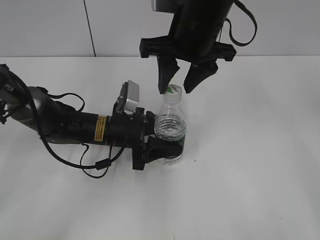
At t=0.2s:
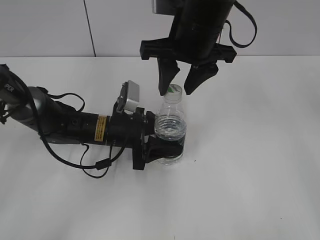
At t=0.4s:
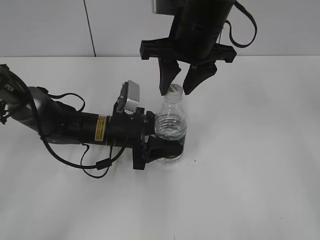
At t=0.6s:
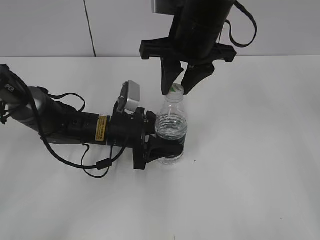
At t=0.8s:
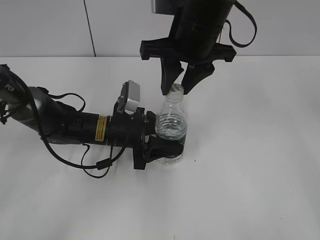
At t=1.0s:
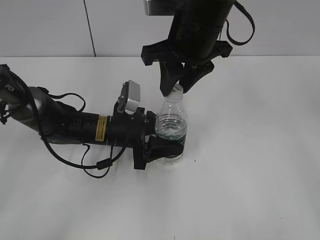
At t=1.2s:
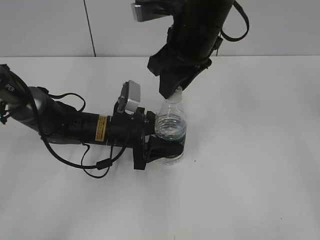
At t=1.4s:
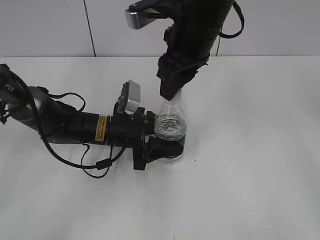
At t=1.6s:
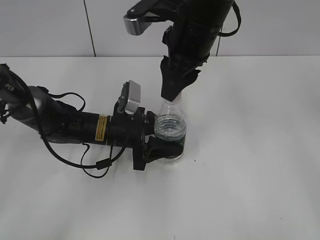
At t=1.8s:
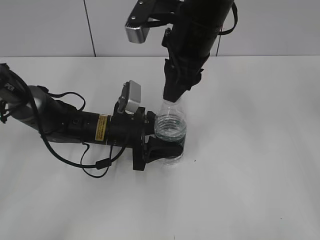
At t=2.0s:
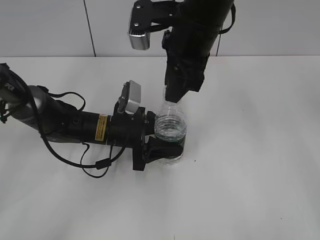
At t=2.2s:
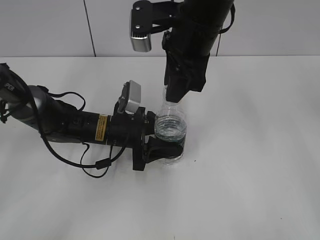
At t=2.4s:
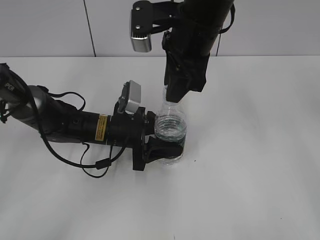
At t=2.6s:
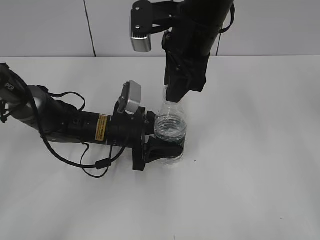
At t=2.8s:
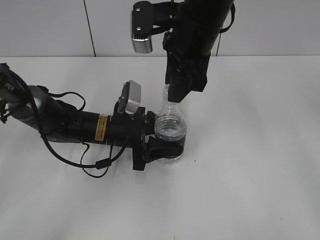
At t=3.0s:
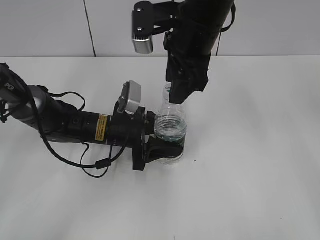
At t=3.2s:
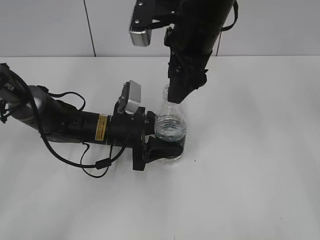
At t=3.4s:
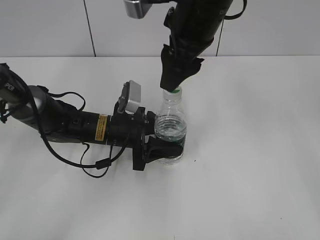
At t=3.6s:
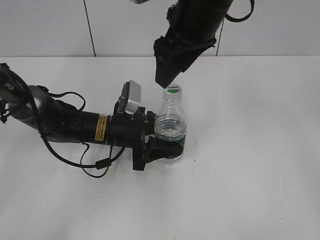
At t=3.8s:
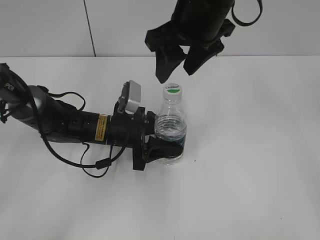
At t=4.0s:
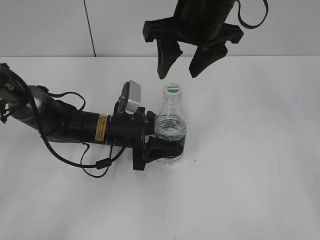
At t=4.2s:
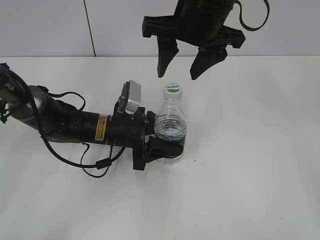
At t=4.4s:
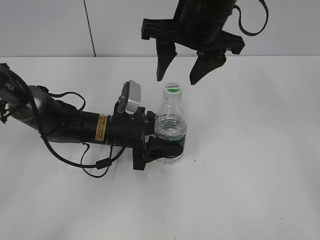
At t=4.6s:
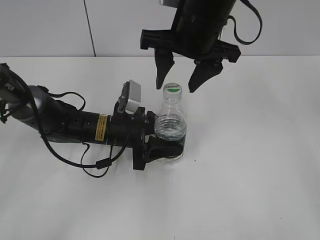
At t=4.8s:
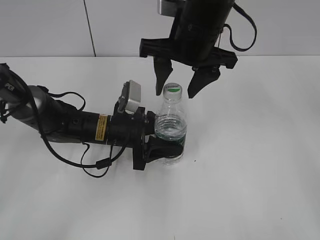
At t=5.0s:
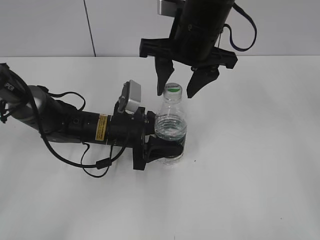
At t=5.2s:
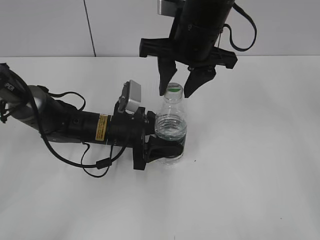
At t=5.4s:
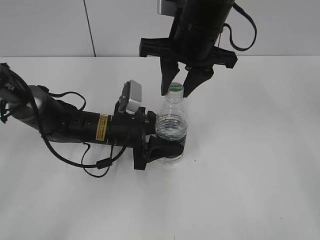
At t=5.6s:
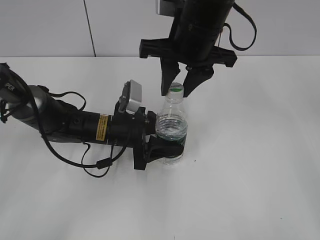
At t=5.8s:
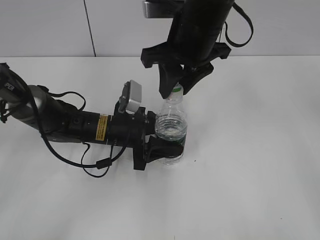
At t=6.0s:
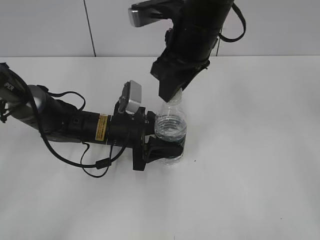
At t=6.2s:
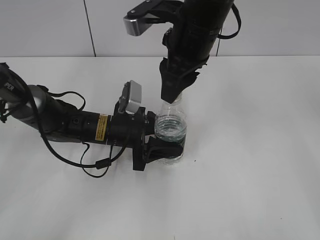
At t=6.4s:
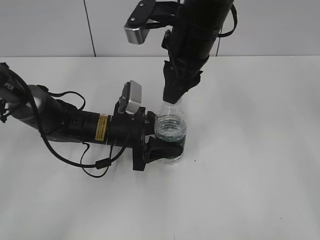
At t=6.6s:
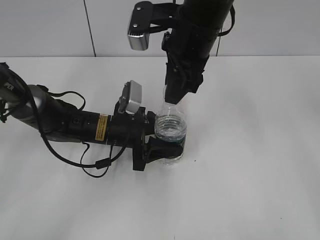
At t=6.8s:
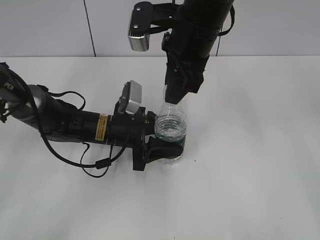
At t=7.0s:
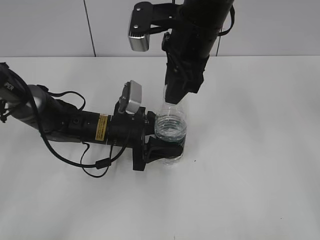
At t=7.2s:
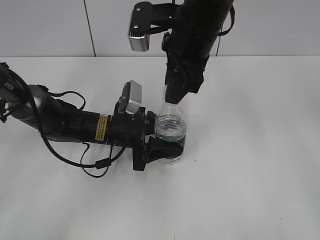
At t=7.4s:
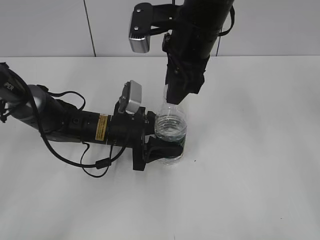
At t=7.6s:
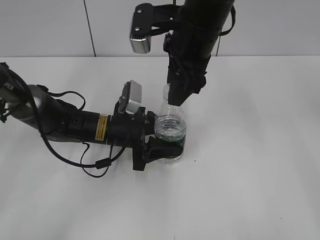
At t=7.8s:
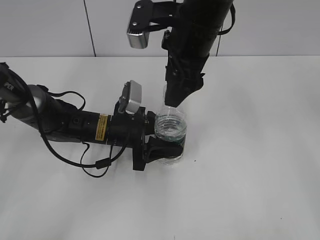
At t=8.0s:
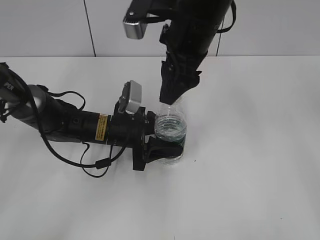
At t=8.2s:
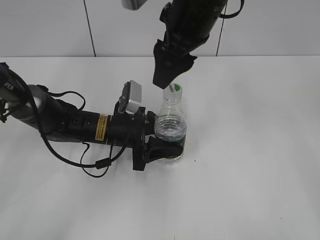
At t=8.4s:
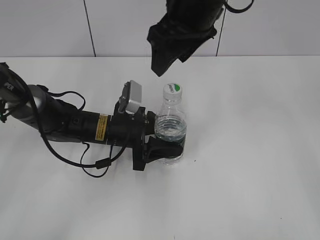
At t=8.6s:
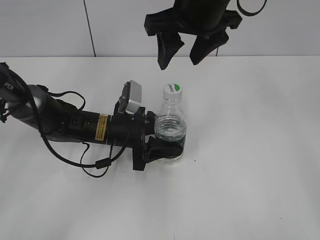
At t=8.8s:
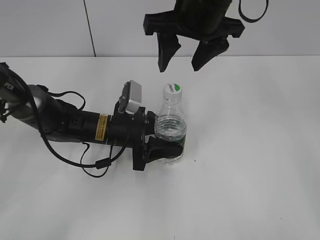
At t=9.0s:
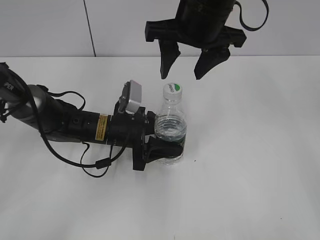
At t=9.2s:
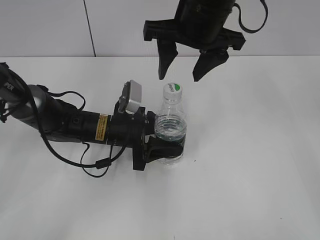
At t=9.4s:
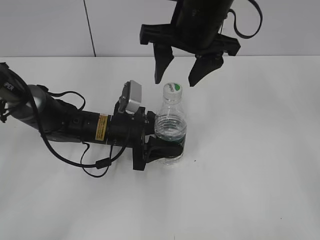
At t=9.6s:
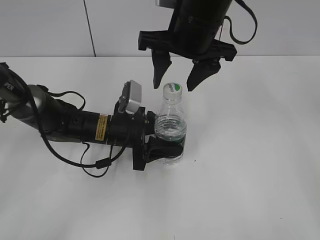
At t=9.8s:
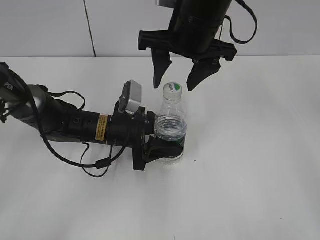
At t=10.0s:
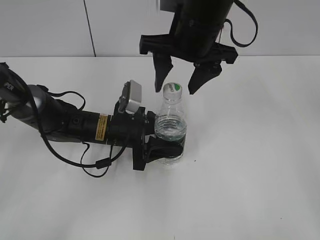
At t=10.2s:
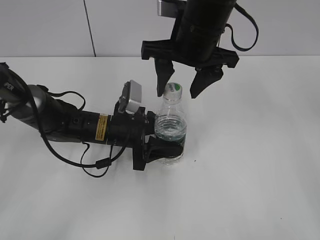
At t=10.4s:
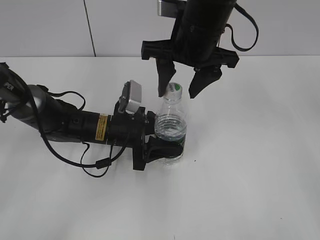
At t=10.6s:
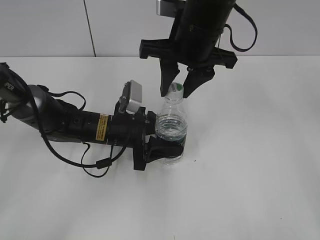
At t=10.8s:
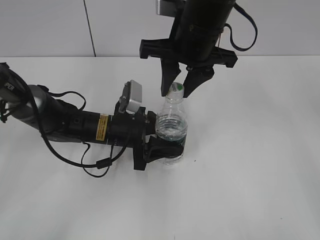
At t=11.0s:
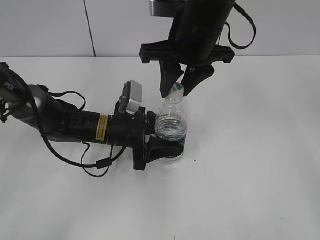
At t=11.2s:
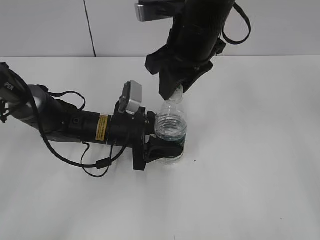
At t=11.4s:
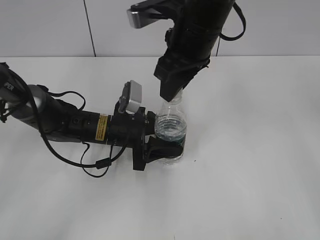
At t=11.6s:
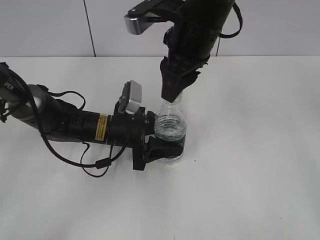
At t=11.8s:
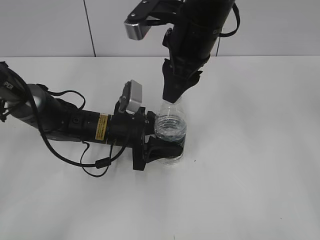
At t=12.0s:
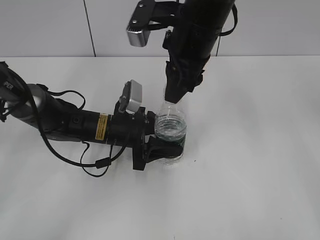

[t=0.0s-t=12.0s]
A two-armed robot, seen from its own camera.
t=0.0s to t=1.6s: The right gripper closes up.
t=1.6s to t=3.0s: The right gripper opens.
t=4.4s to t=6.0s: The right gripper closes its fingers.
t=6.0s to t=7.6s: The right gripper opens its fingers.
t=7.6s to t=9.0s: The right gripper opens.
t=9.0s to t=10.4s: The grippers stay close to where they were, moving slightly.
t=10.4s to t=12.0s: The right gripper closes.

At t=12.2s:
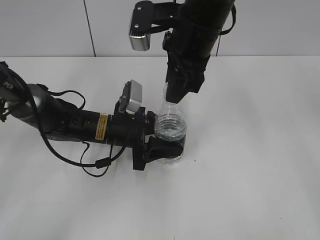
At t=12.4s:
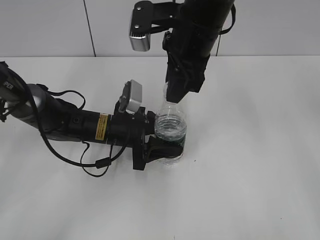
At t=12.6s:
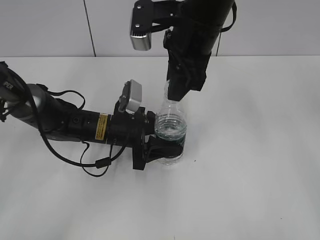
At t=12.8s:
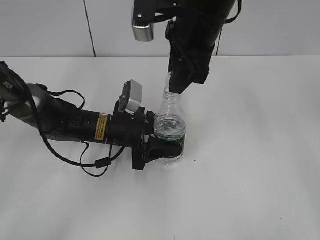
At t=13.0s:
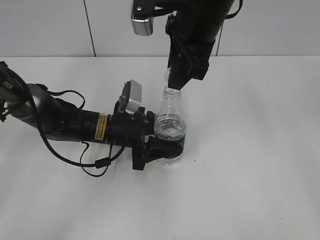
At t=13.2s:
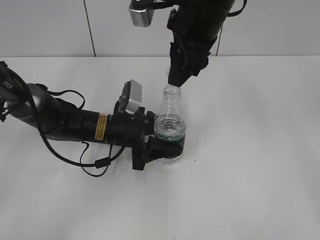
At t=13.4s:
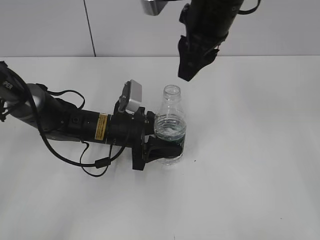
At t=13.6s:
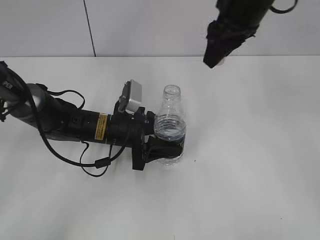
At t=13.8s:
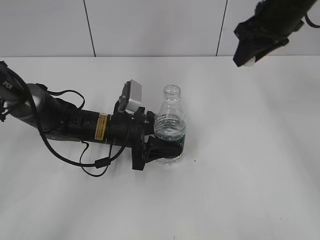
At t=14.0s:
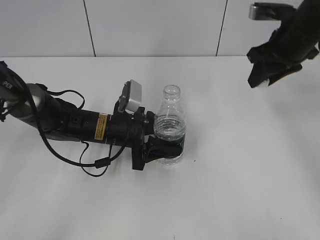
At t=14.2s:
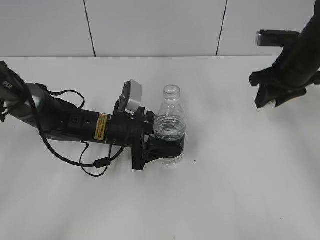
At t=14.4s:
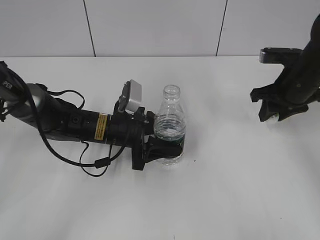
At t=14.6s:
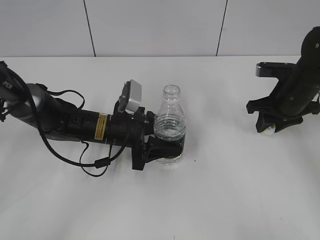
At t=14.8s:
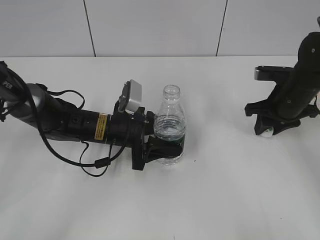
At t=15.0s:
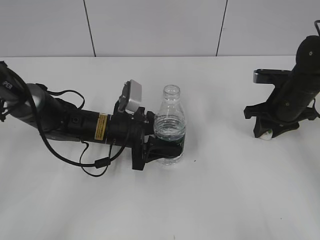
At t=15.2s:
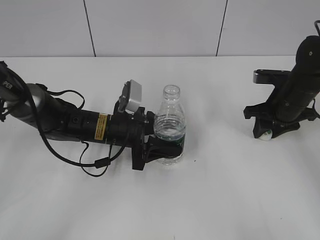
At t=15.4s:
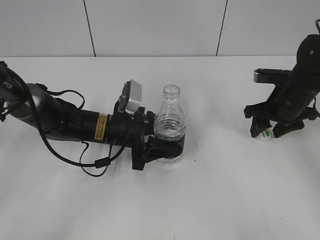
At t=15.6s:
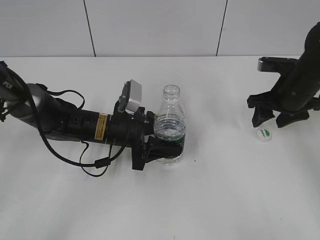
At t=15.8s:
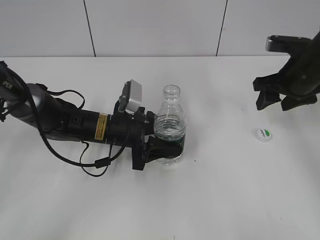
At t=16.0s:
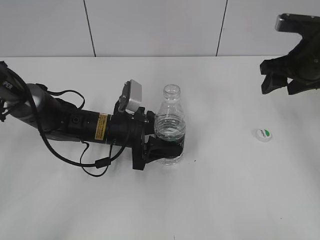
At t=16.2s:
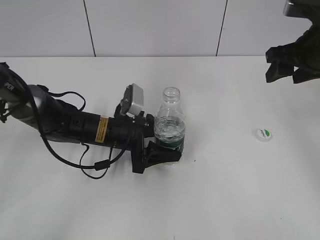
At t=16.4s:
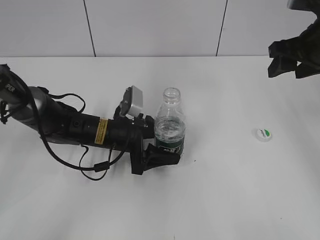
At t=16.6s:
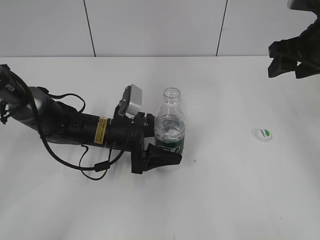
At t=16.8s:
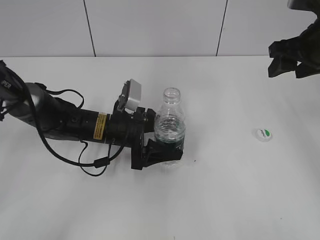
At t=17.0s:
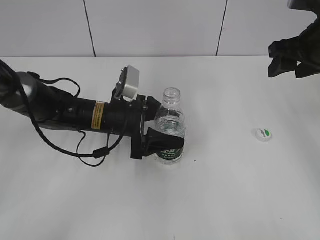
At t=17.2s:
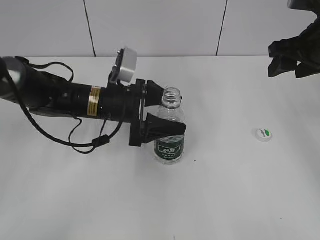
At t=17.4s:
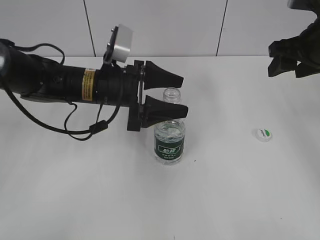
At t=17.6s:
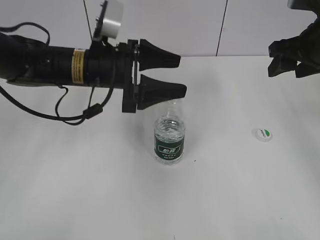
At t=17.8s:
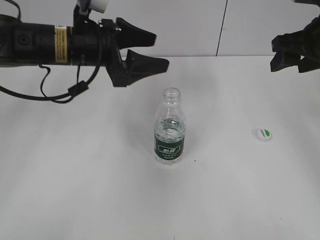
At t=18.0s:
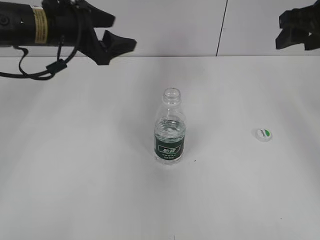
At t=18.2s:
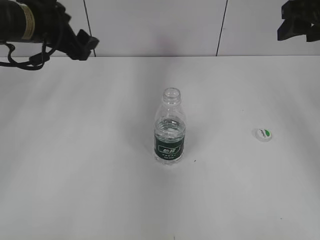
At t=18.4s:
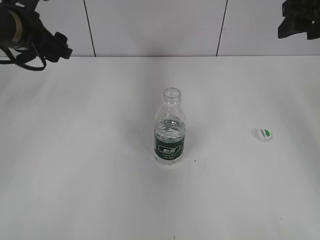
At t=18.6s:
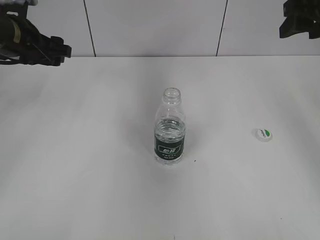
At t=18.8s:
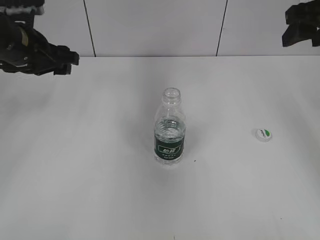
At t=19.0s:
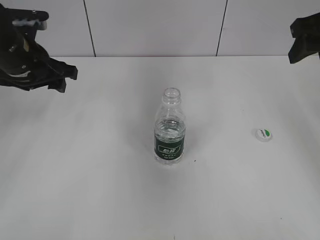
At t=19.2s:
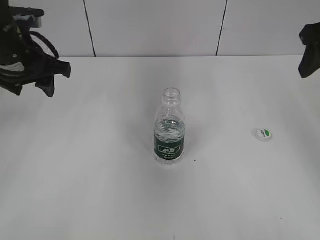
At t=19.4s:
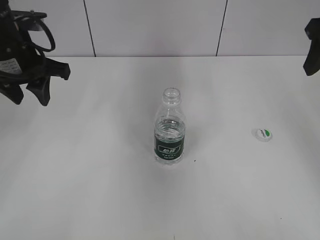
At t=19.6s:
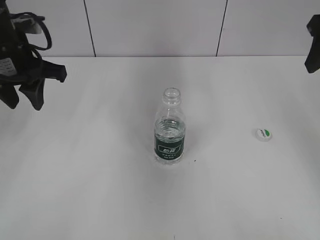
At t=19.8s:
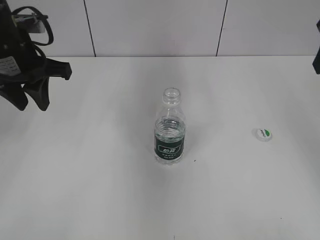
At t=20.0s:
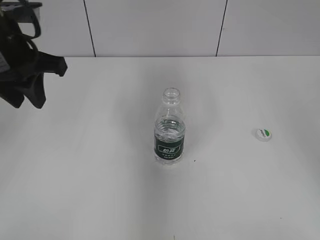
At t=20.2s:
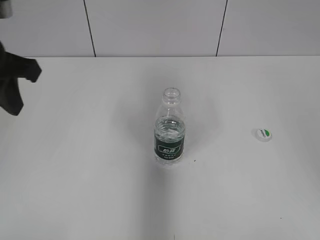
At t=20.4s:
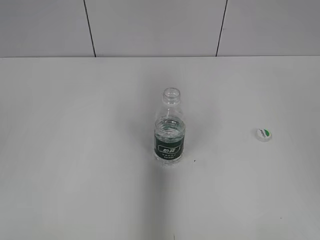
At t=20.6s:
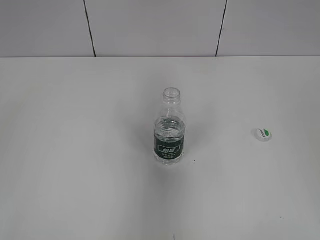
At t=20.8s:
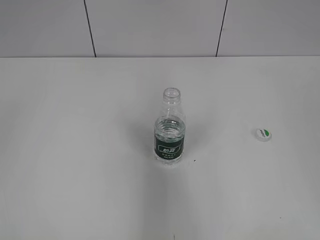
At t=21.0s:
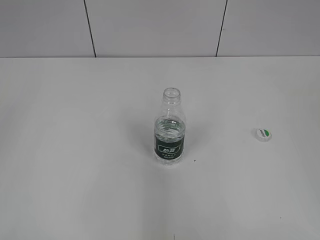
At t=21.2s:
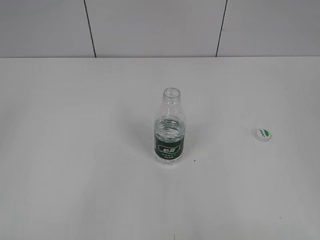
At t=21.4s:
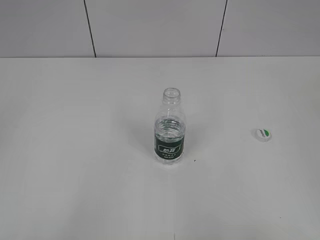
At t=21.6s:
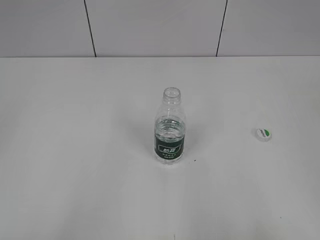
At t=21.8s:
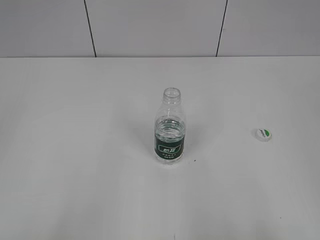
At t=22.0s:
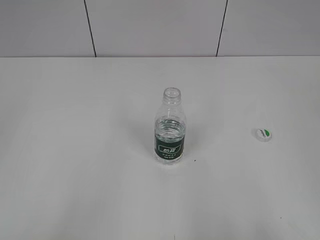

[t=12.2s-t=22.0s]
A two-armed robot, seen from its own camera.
Step, t=13.2s to t=15.6s: Place the bottle cap on the table with the right gripper.
Step, t=15.8s to t=17.4s: Place the bottle on the table with the left gripper.
t=12.2s to t=13.6s: The right gripper goes some 5 cm to the right.
t=13.6s to t=15.0s: The right gripper moves downward and to the right, about 25 cm.
t=15.0s to t=16.4s: The right gripper moves upward, some 15 cm, and opens.
t=16.4s to t=17.8s: The left gripper moves upward, about 20 cm.
t=17.8s to t=19.2s: The right gripper moves approximately 5 cm. The left gripper heads to the left, covering about 10 cm, and closes its fingers.
t=19.2s to t=20.6s: The right gripper goes roughly 25 cm backward, while the left gripper moves backward and upward, approximately 25 cm, and closes its fingers.
t=20.6s to t=22.0s: The left gripper shifts approximately 15 cm backward. The right gripper is displaced backward and downward by some 15 cm.
